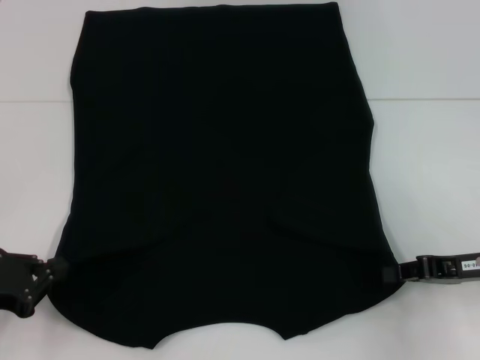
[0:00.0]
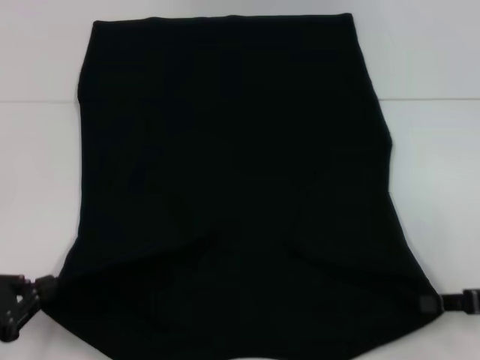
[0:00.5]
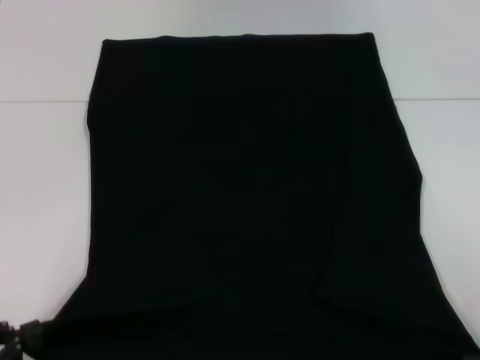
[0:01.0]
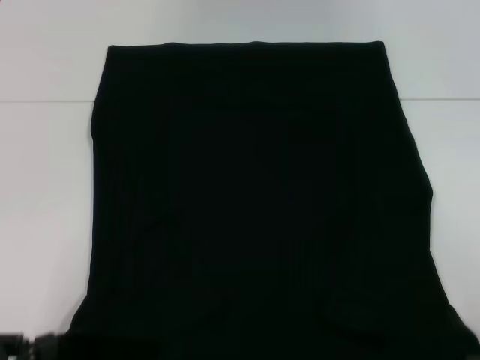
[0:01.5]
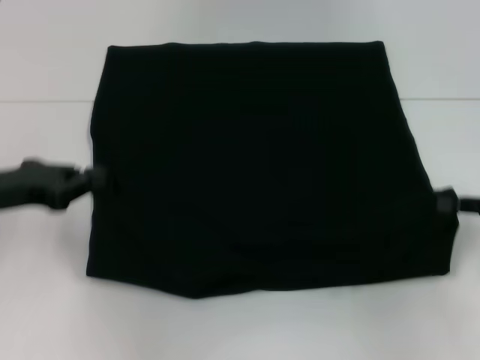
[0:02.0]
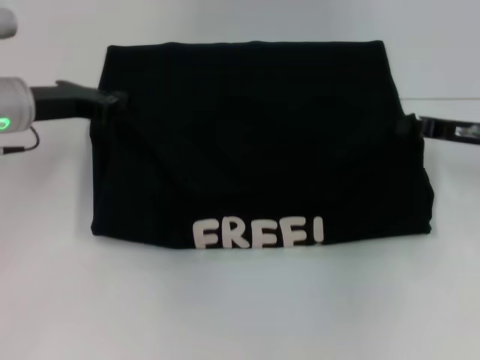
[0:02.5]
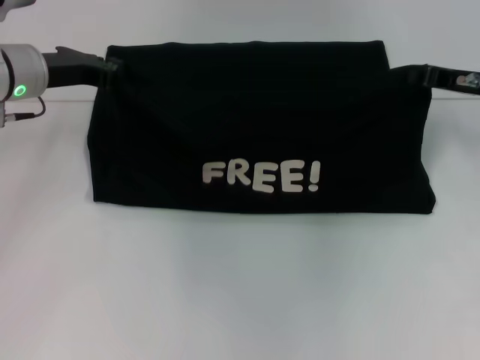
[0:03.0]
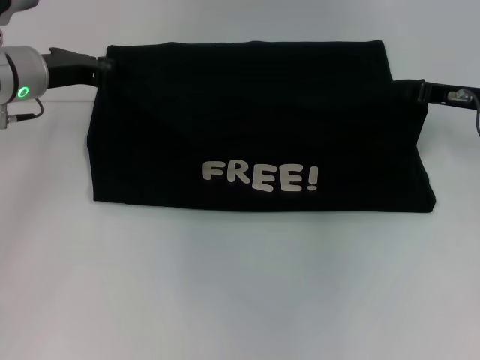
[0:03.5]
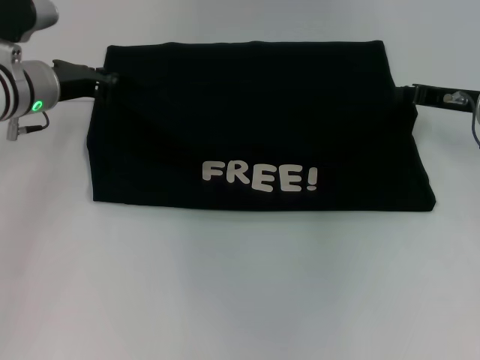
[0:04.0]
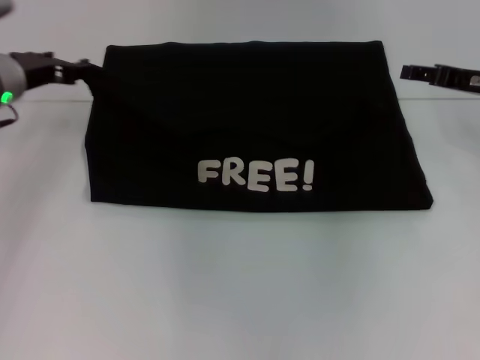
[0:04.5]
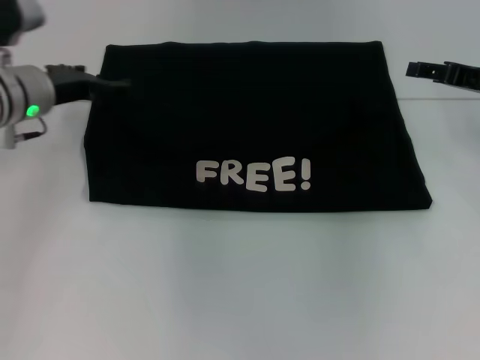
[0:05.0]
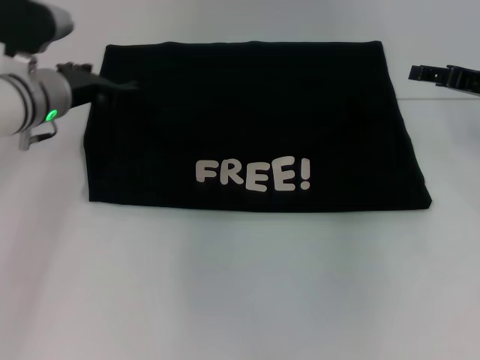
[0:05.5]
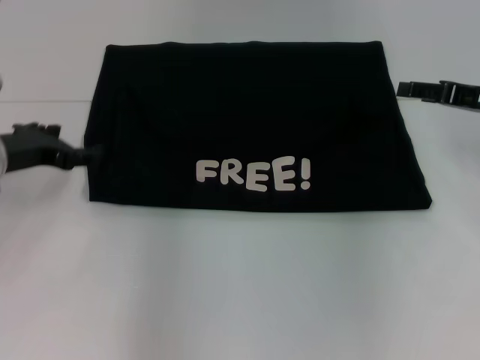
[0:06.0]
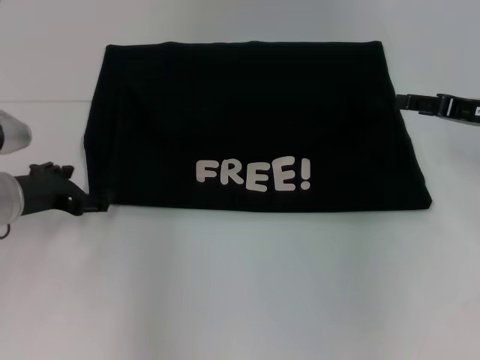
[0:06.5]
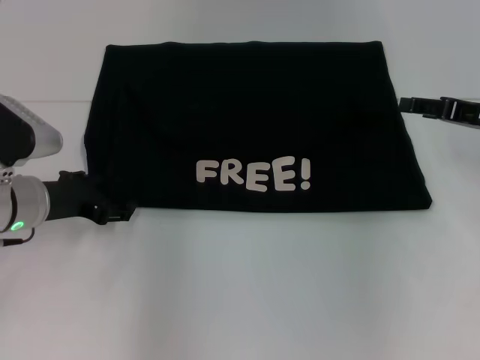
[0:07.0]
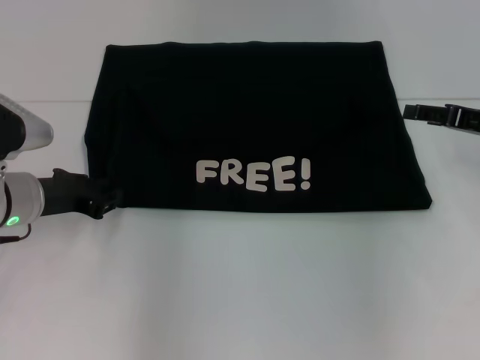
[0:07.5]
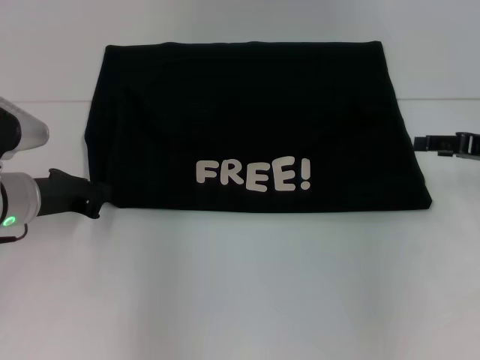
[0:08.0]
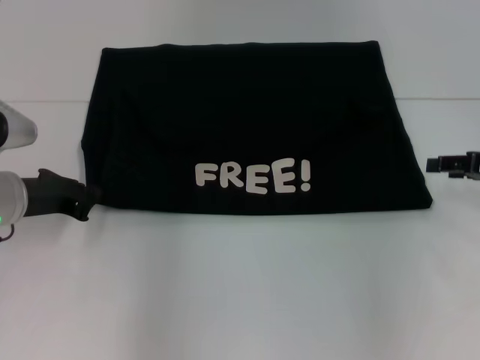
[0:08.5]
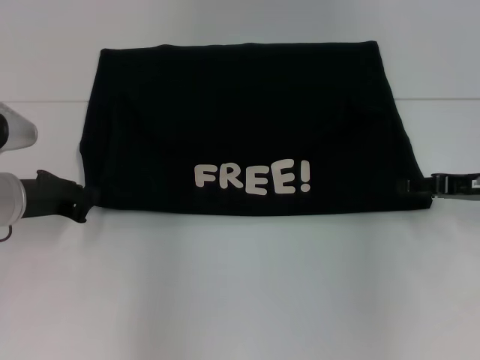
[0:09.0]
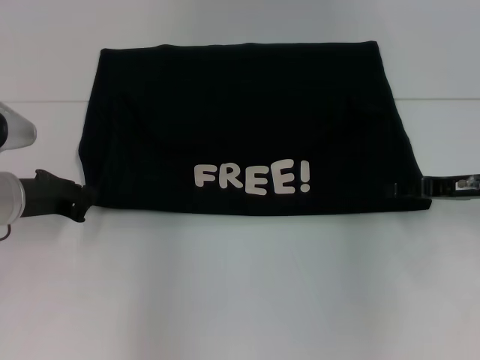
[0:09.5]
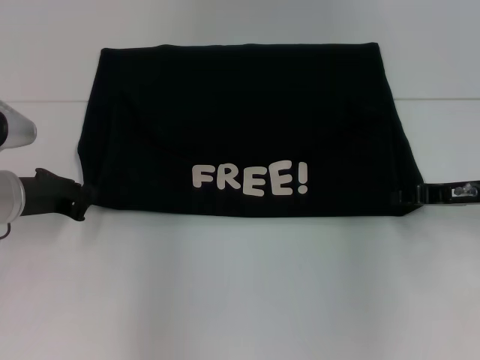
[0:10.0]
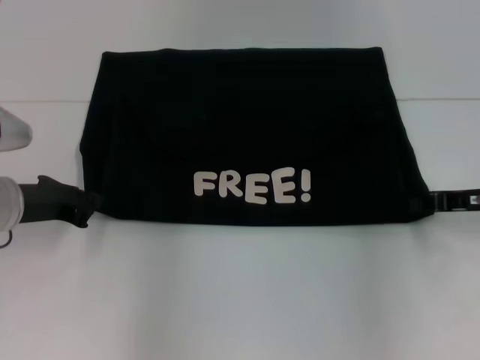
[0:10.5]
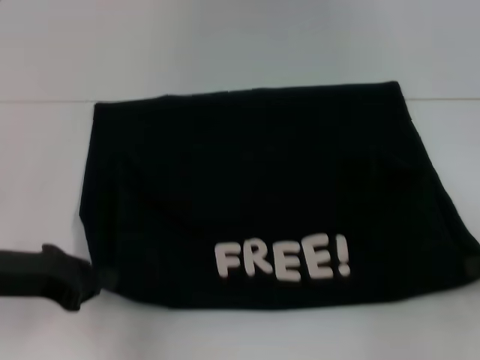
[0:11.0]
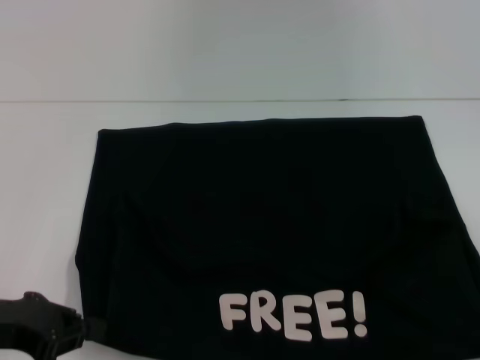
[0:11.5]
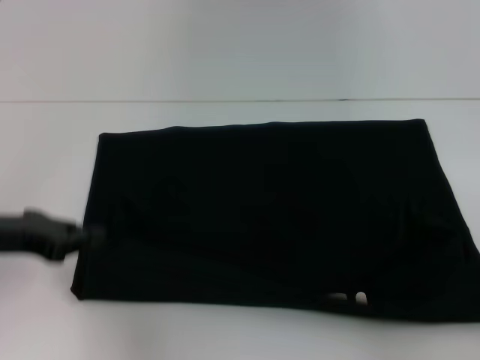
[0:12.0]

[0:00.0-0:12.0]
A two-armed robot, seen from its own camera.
Step, 0:01.0 to 0:04.5: Fold the clothes with your left hand.
Step, 0:01.0 to 0:04.5: Fold the clothes with your right hand.
Step, 0:05.0 to 0:11.0: Pull the clothes with your left hand.
Step, 0:05.0 to 0:11.0: Pull the clothes with your right hand.
0:00.0 to 0:02.0: The right gripper heads to the right, covering approximately 5 cm, and goes backward and returns, some 10 cm each way, while the left gripper goes roughly 10 cm forward and upward.
0:02.0 to 0:04.0: The left gripper moves forward and to the right, about 15 cm. Meanwhile the right gripper travels forward and to the left by roughly 15 cm.
0:04.0 to 0:06.0: The right gripper opens. Meanwhile the left gripper moves backward, about 10 cm, and opens up.
0:06.0 to 0:08.0: The left gripper closes up.
0:08.0 to 0:10.0: The right gripper ends up some 5 cm from where it was.
0:10.0 to 0:12.0: The left gripper heads backward, covering approximately 5 cm, while the right gripper shifts roughly 15 cm backward and to the right, and closes up.

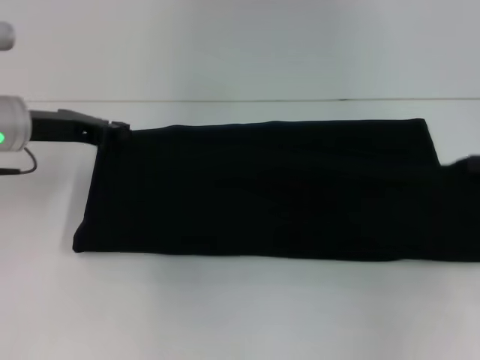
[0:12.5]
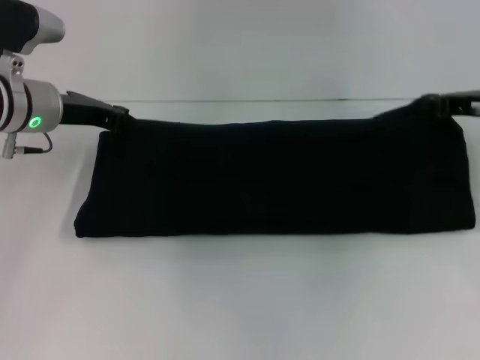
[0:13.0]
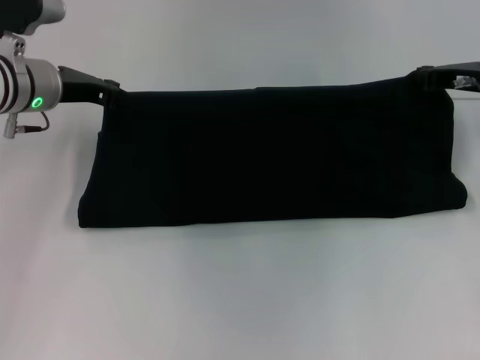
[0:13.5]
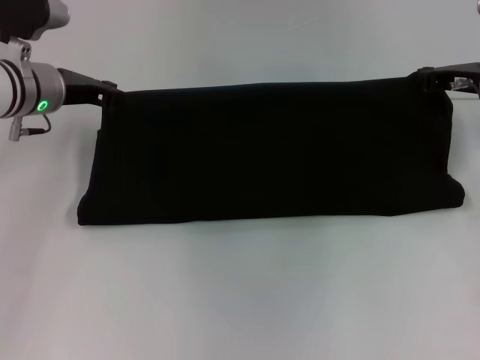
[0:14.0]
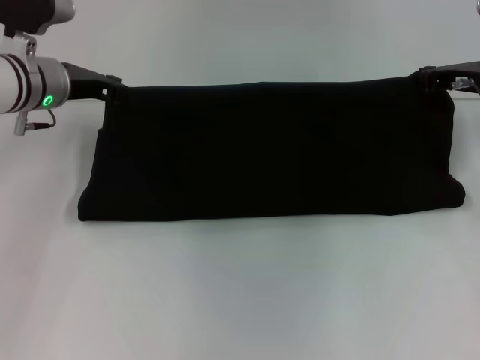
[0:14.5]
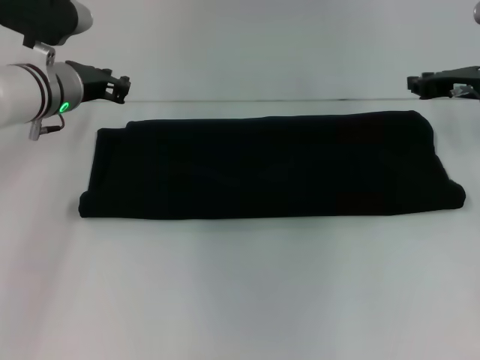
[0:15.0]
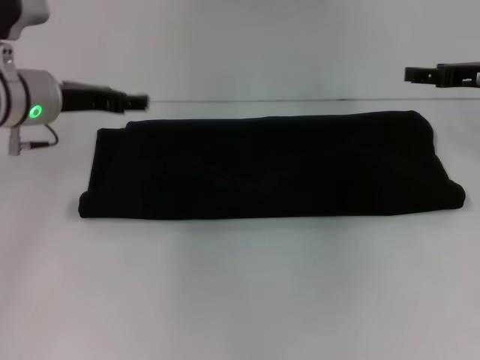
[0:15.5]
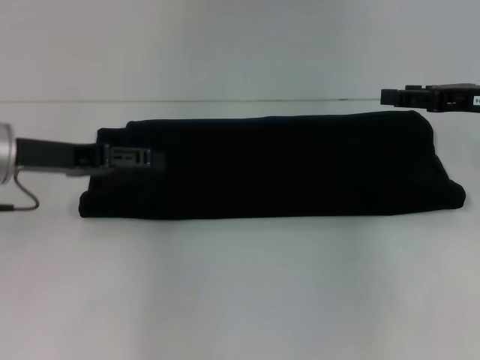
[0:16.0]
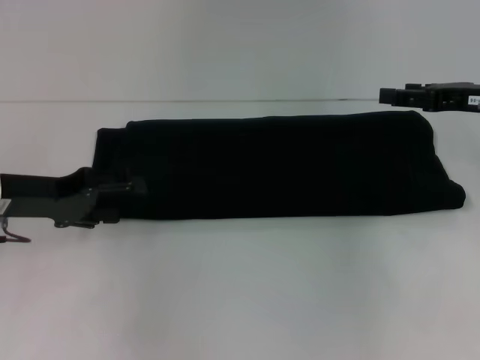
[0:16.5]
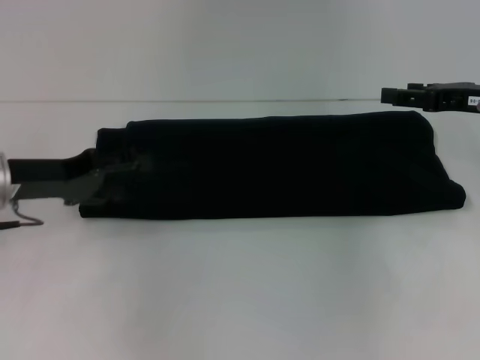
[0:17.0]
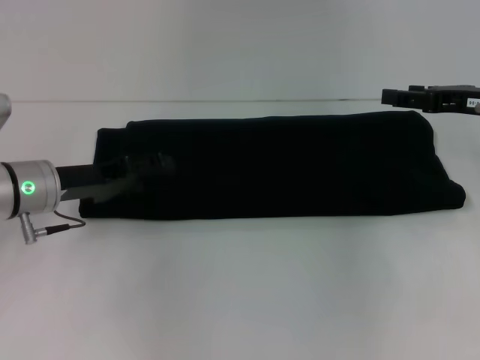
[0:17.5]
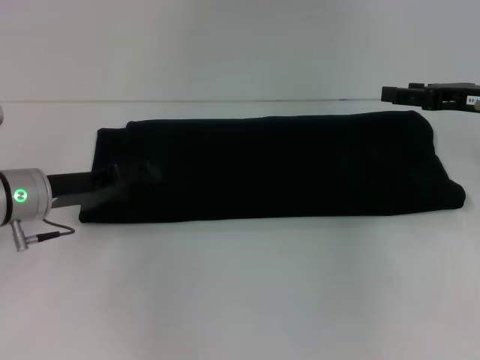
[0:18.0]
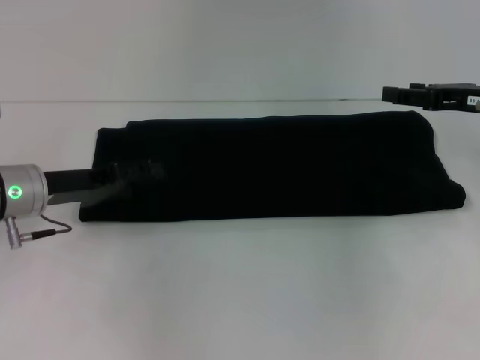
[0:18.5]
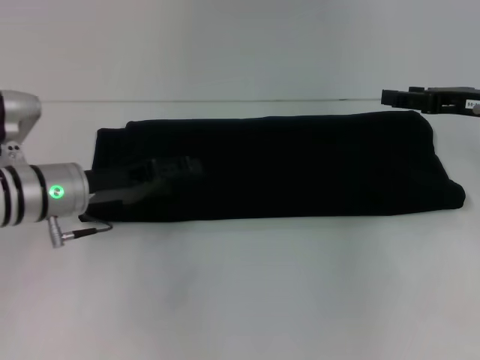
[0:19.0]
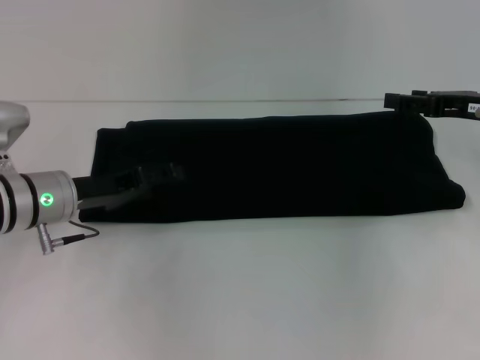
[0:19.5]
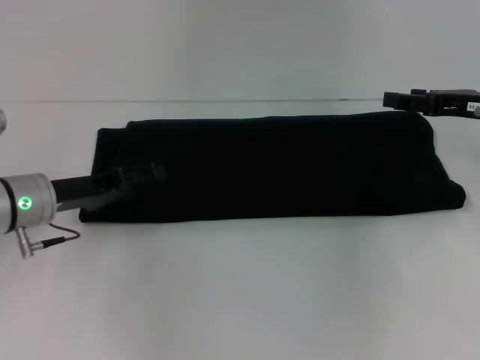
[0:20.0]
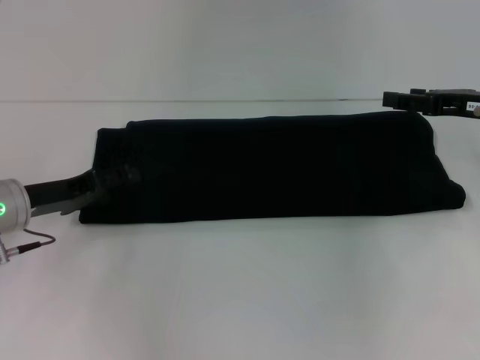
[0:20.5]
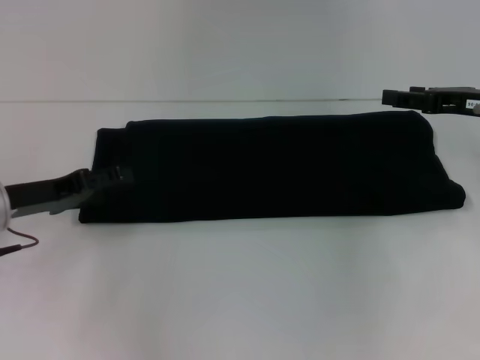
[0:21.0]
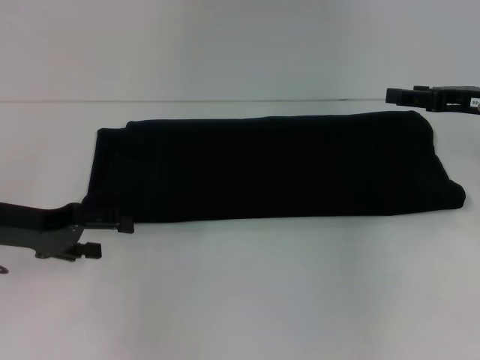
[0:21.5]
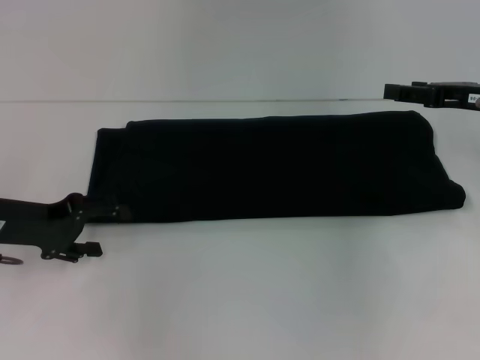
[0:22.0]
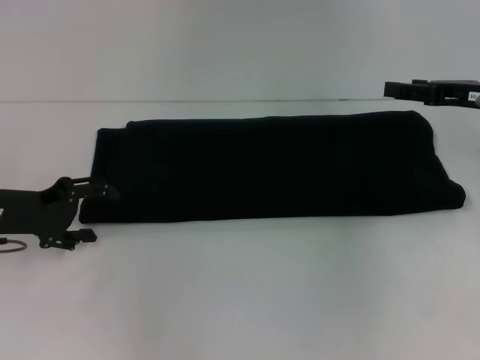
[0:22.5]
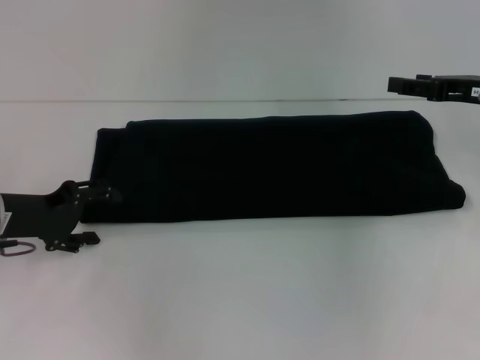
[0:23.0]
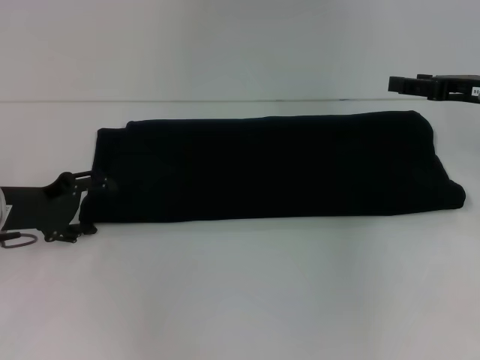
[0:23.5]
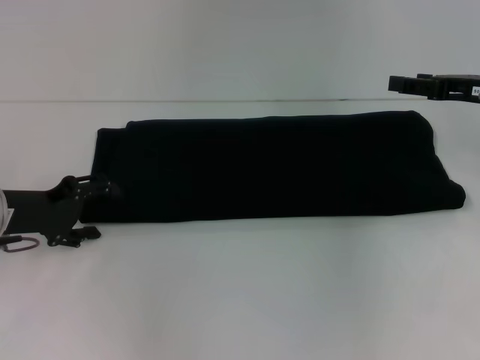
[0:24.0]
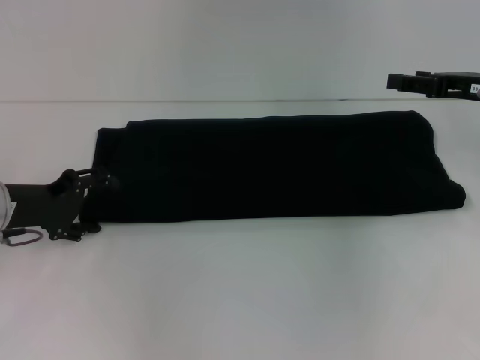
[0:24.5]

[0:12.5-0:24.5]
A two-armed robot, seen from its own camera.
Step, 0:12.5 to 0:15.5: Fold the clothes with your right hand.
0:12.5 to 0:14.5: The right gripper heads forward and to the left, covering some 15 cm, while the left gripper moves forward, some 5 cm.
0:14.5 to 0:16.5: The left gripper heads backward and to the left, covering approximately 15 cm, and opens up. Meanwhile the right gripper moves backward, some 5 cm, and opens its fingers.
0:16.5 to 0:18.5: There are only small adjustments of the grippers.
0:18.5 to 0:20.5: The grippers stay close to where they were, moving slightly.
0:22.5 to 0:24.5: There are only small adjustments of the grippers.

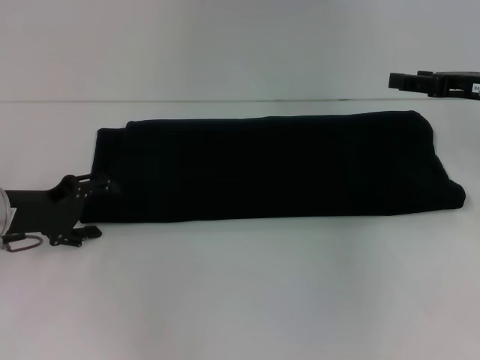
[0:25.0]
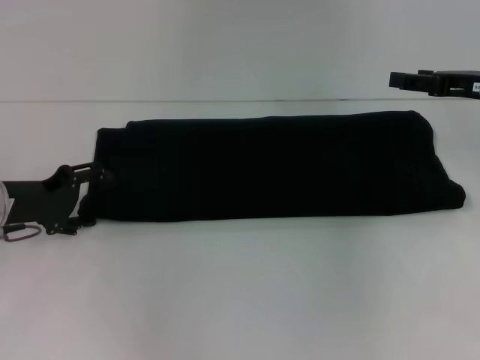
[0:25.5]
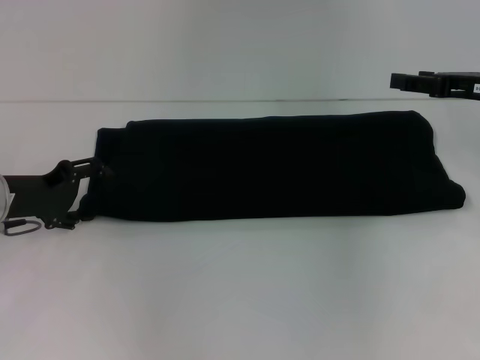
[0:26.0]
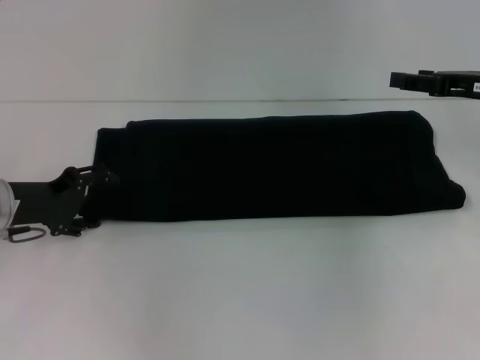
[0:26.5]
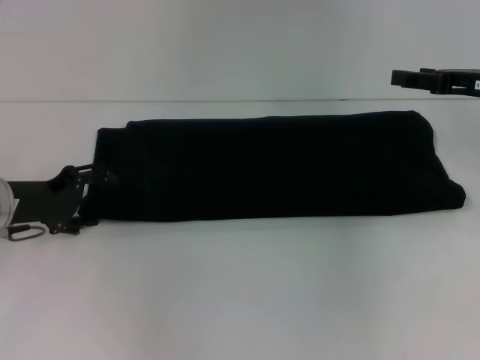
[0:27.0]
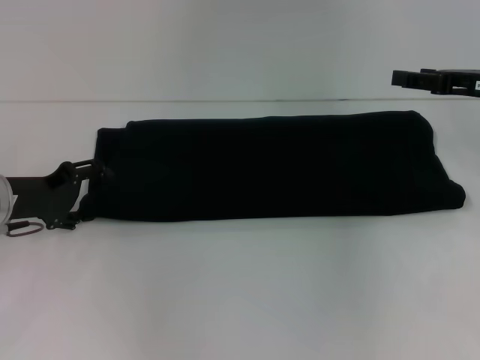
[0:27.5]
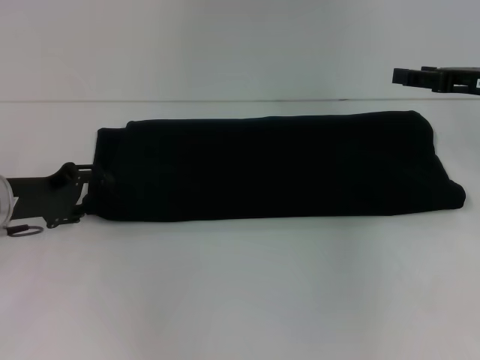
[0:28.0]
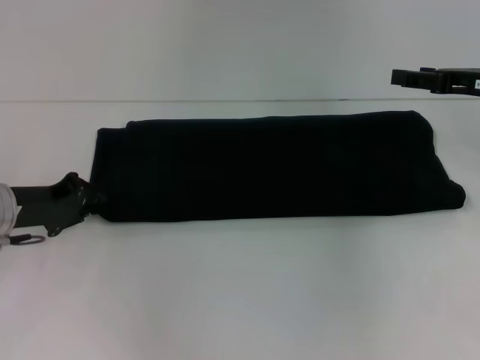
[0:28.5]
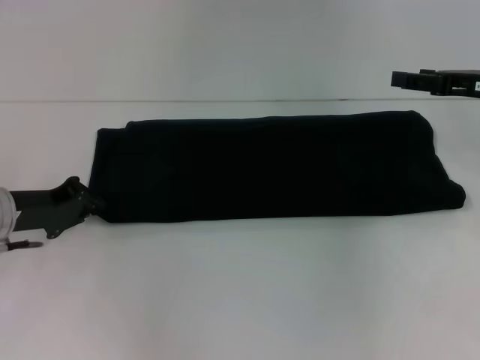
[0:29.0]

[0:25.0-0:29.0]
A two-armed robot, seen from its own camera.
0:25.0 to 0:27.0: The grippers move only a little.
0:27.0 to 0:29.0: The left gripper closes its fingers.
